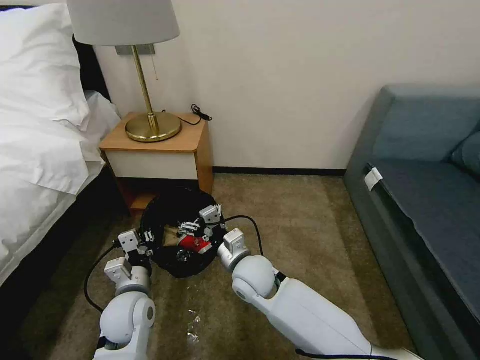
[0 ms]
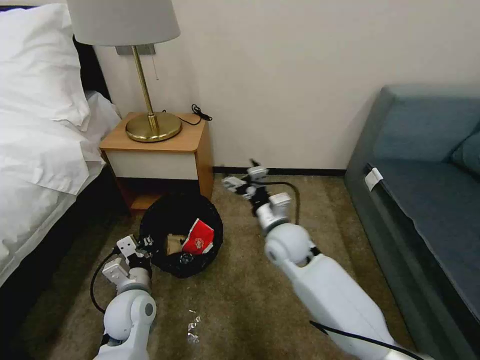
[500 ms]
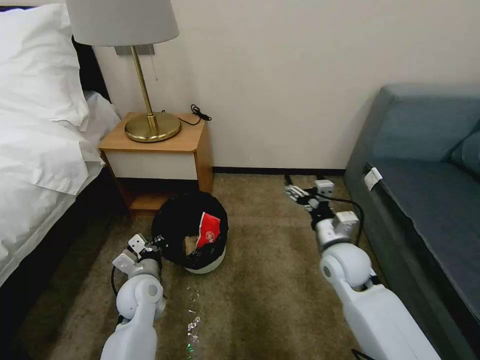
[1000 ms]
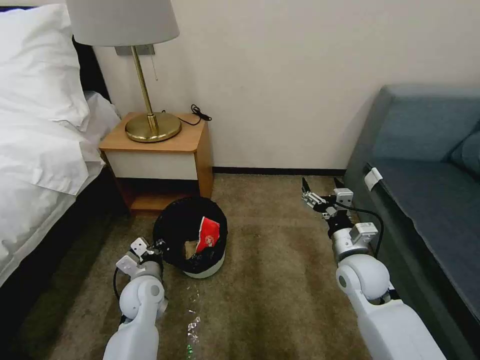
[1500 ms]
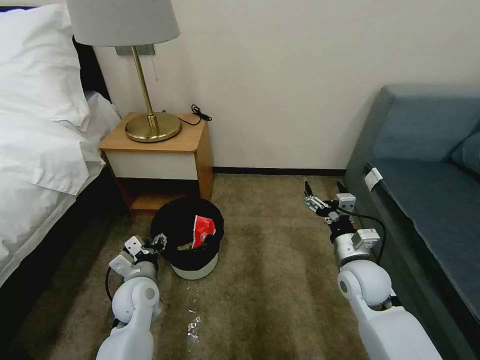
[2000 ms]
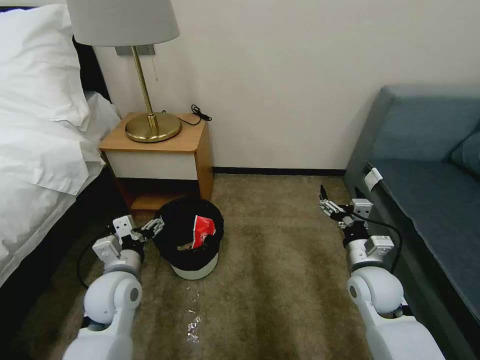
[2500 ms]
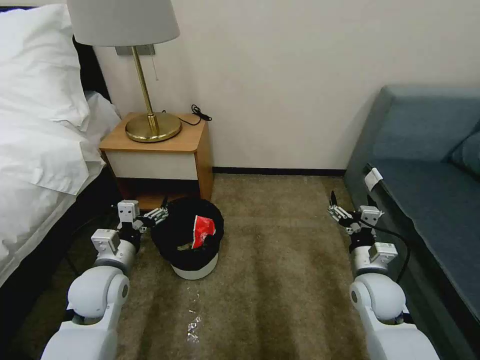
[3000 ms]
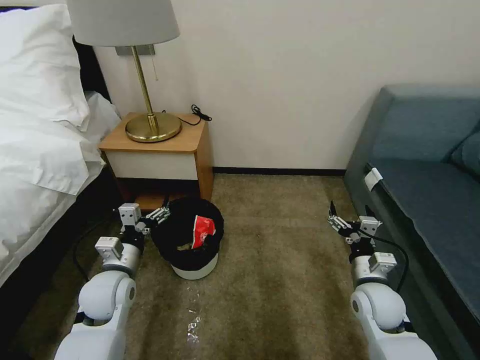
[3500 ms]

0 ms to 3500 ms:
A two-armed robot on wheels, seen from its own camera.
Task of the whole recording: Pick up the trash bin, then pick up the garbage on the floor and place it into the trash bin.
0 ms to 2000 ms: The right gripper moves to the right, approximately 25 cm. Meanwhile the left gripper opens up.
2000 ms to 3500 ms: The right gripper changes place by about 5 cm. Meanwhile the left gripper travels upward by some 5 cm, and opens its fingers.

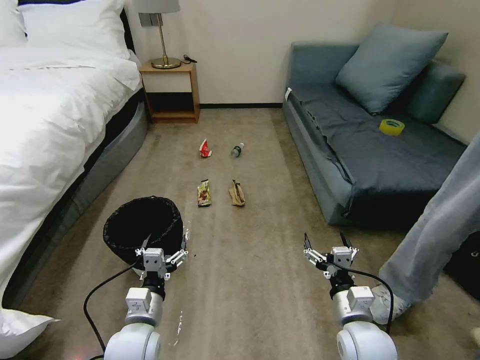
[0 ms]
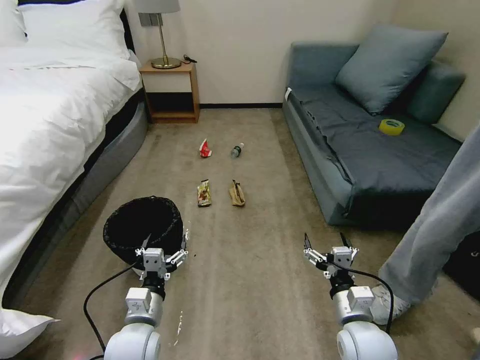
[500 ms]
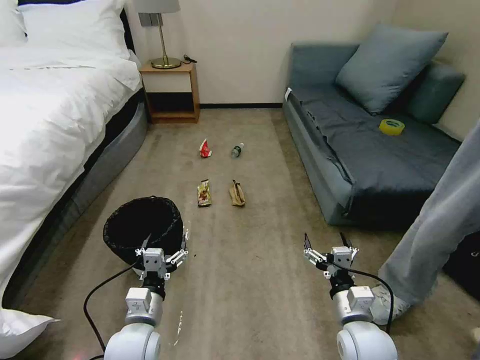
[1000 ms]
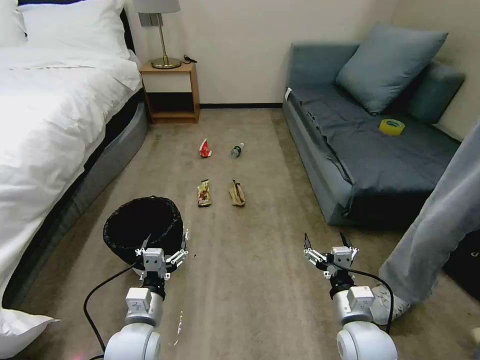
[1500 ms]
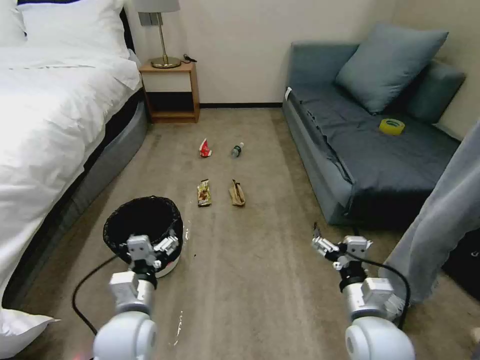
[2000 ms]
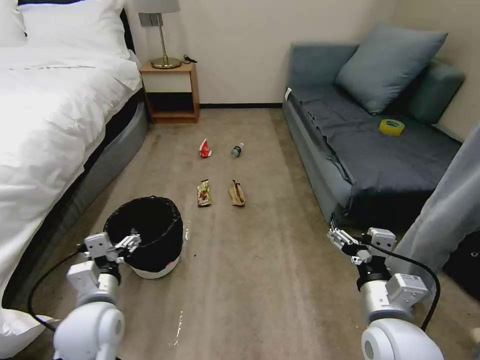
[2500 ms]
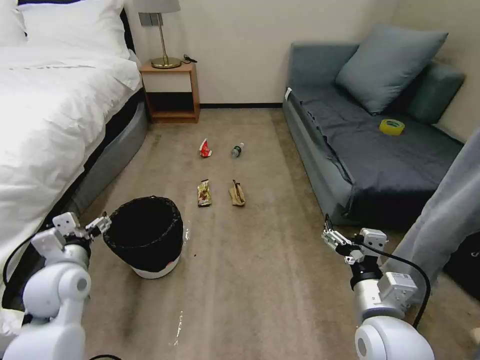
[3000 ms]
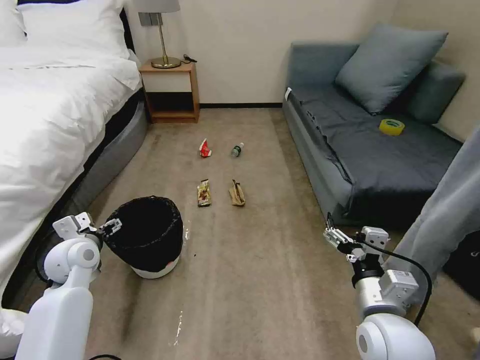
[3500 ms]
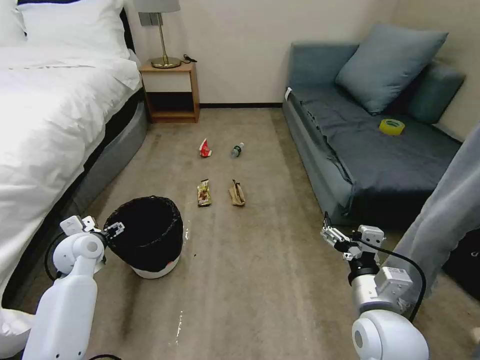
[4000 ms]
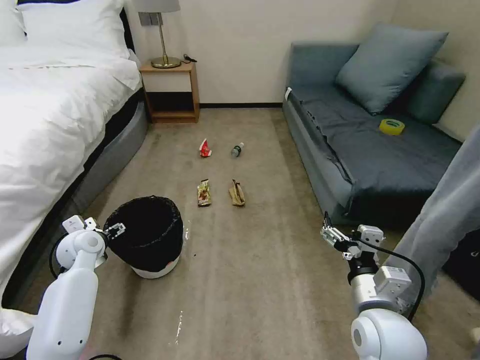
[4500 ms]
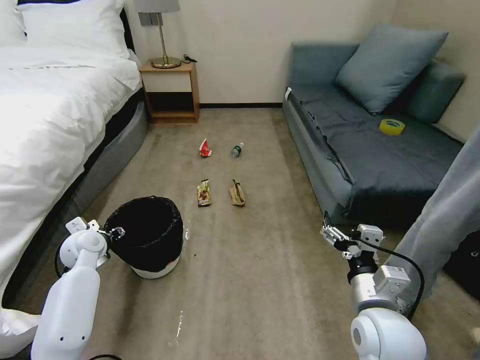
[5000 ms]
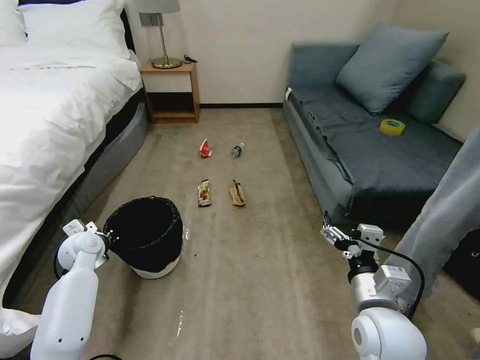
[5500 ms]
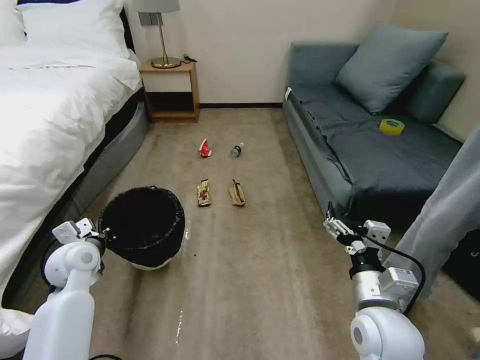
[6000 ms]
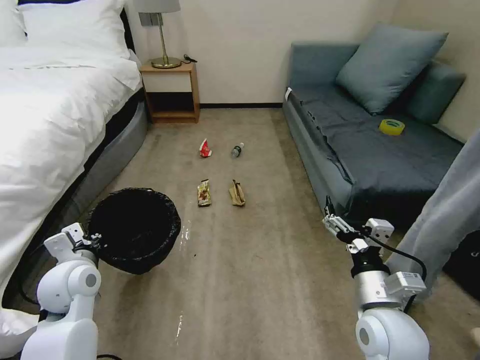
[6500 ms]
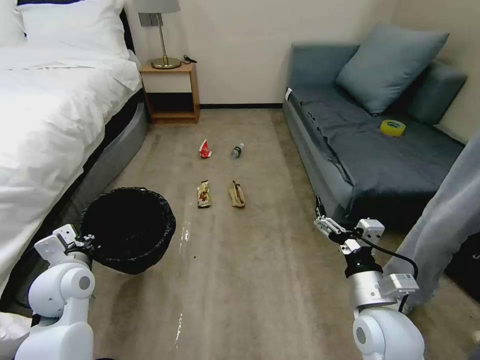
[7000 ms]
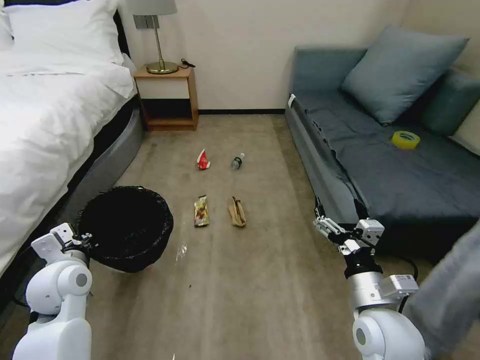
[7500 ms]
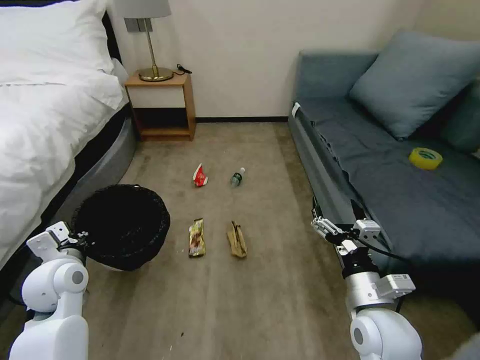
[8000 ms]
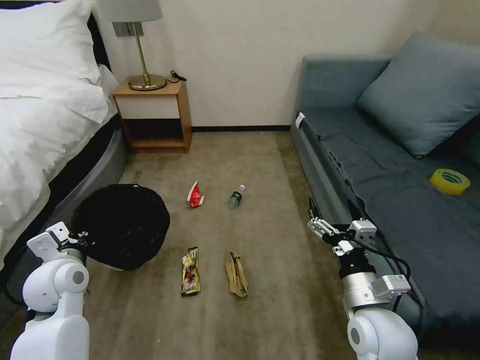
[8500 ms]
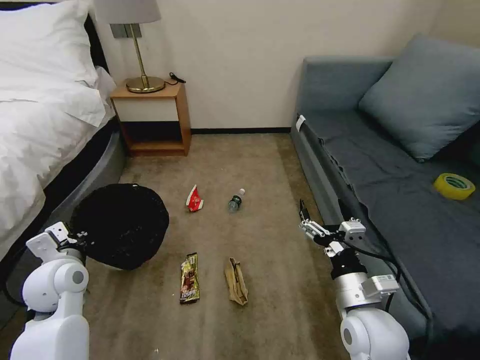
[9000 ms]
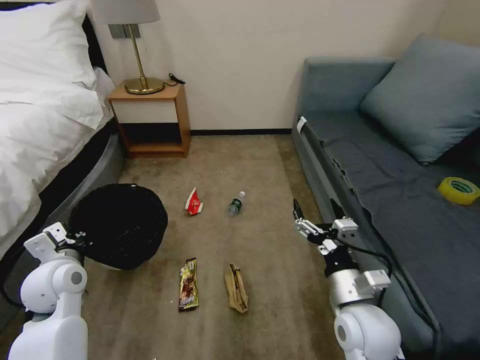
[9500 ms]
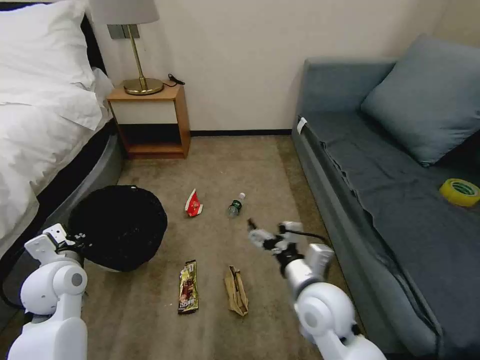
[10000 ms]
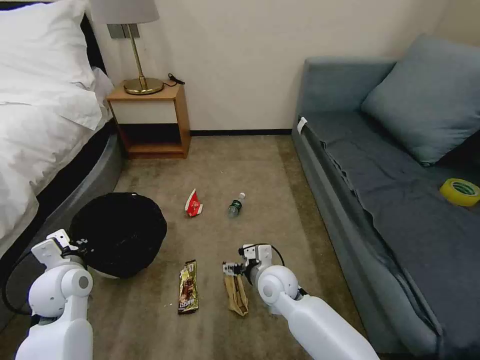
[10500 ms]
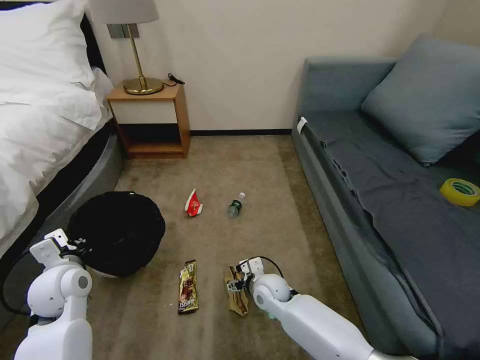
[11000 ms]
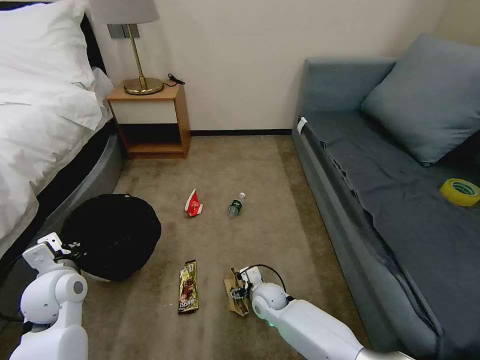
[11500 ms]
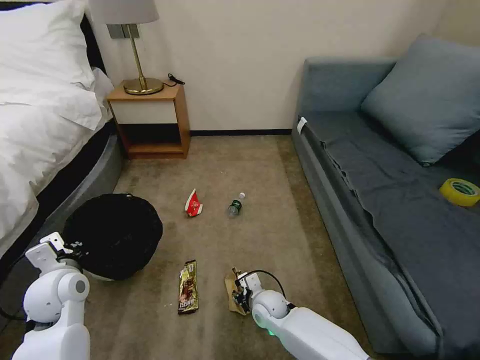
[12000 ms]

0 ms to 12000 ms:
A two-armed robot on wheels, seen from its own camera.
Task of the whole recording: Pick up the trash bin, then pick up the garbage on the floor and place it into the trash bin.
2000 ms to 4000 ms: The left gripper shifts approximately 25 cm forward and to the left.
4000 ms to 6000 ms: The left gripper closes its fingers.
6000 ms to 8000 ms: The left gripper is displaced backward by roughly 5 cm.
8000 ms to 10000 ms: The right gripper goes some 10 cm to the left.
10000 ms to 12000 ms: The right gripper shifts some 25 cm downward, and closes.

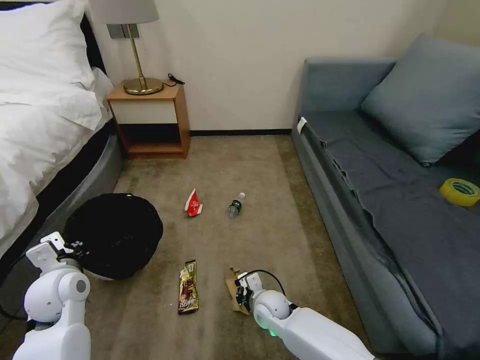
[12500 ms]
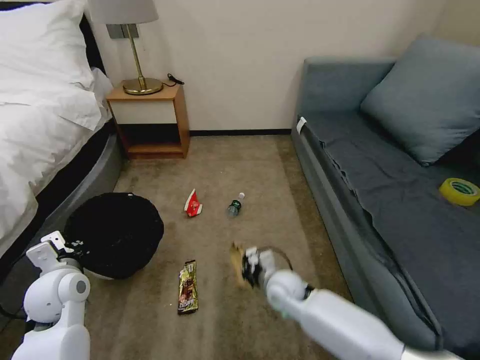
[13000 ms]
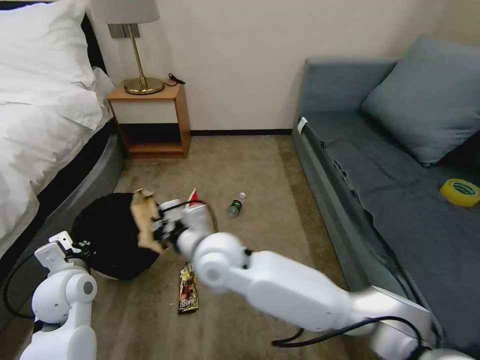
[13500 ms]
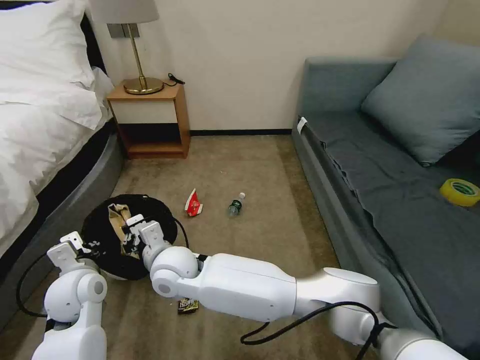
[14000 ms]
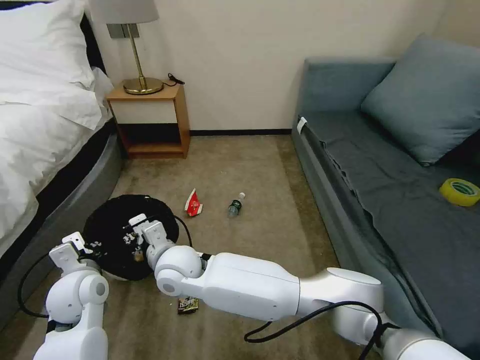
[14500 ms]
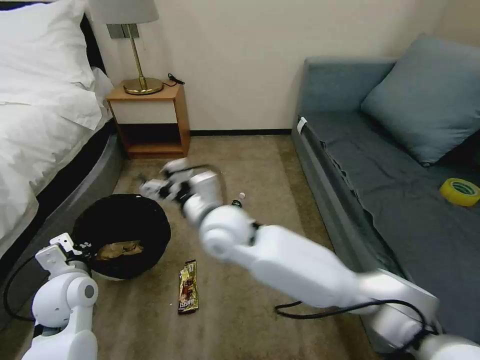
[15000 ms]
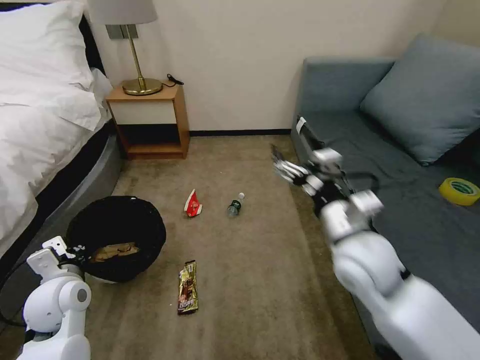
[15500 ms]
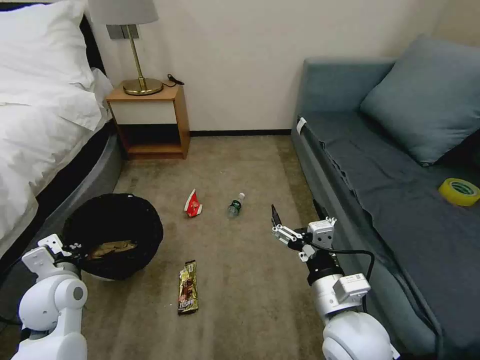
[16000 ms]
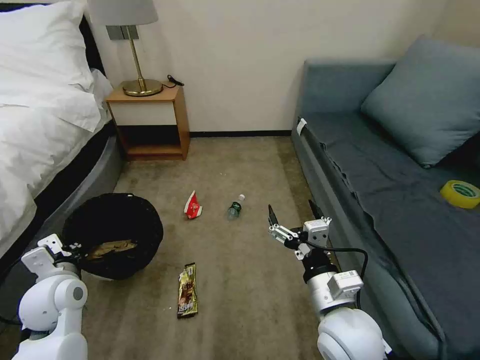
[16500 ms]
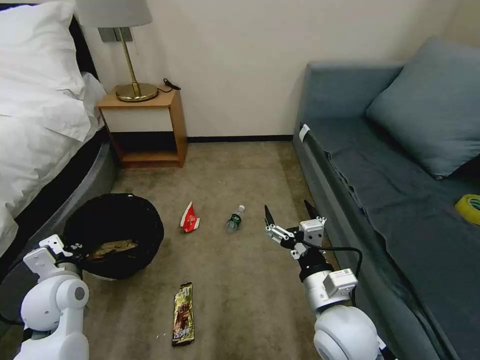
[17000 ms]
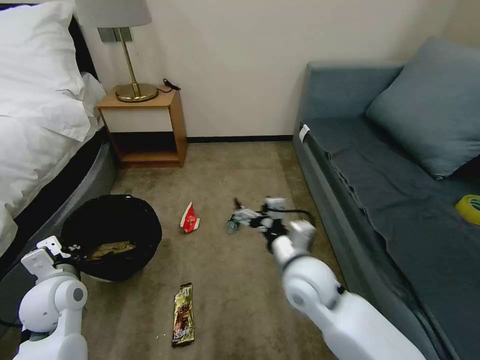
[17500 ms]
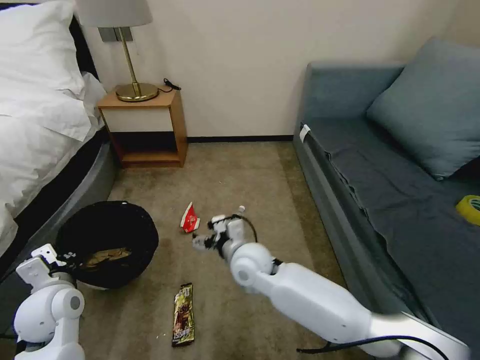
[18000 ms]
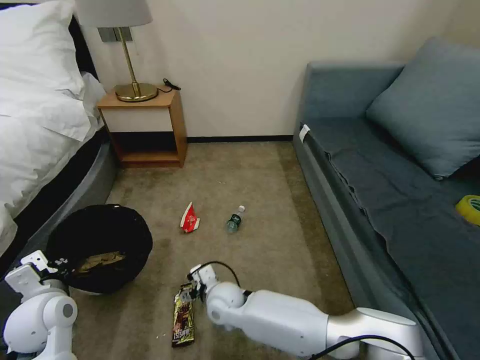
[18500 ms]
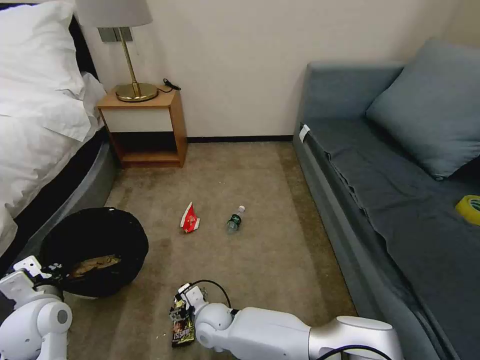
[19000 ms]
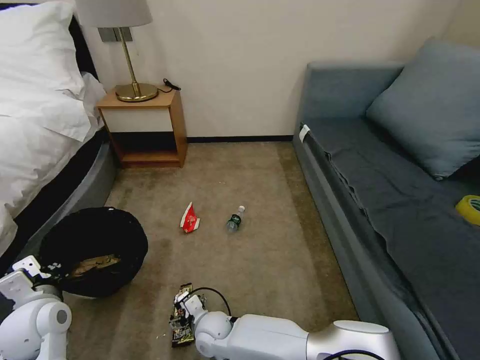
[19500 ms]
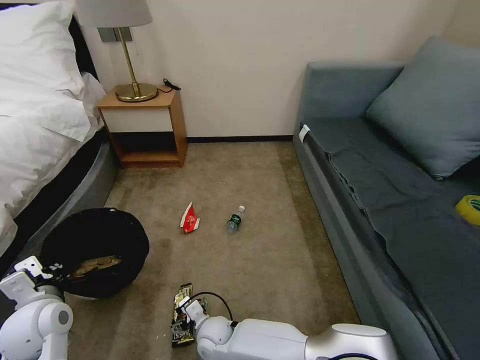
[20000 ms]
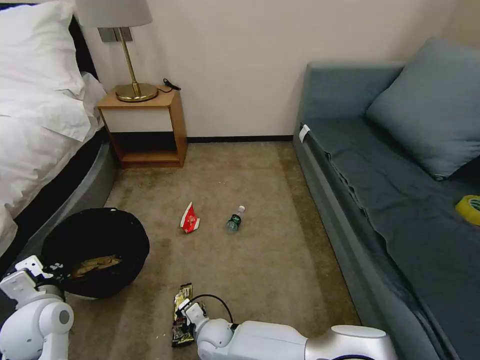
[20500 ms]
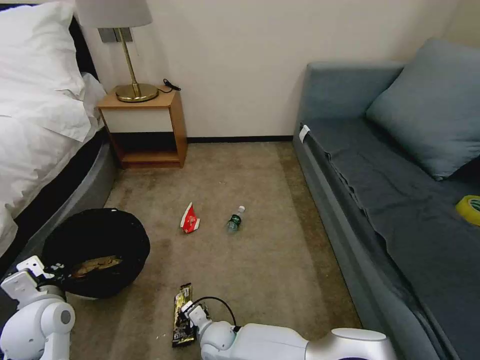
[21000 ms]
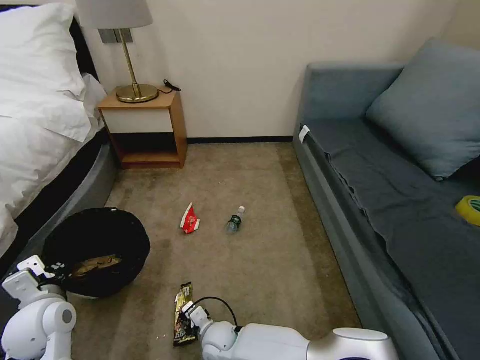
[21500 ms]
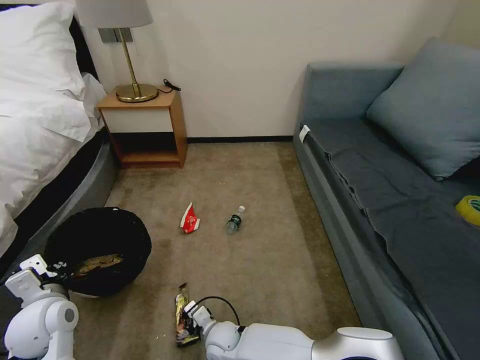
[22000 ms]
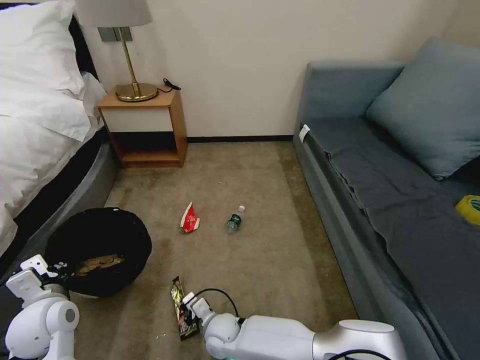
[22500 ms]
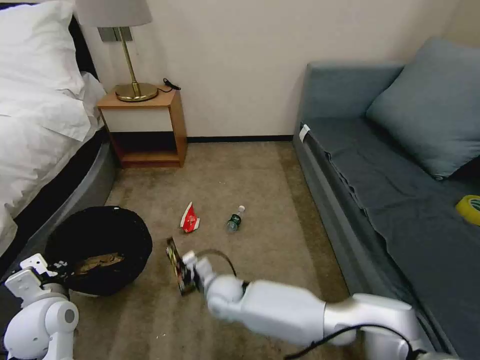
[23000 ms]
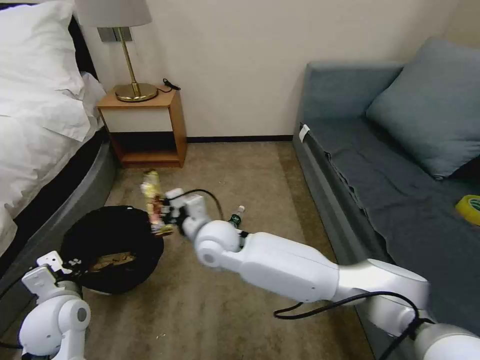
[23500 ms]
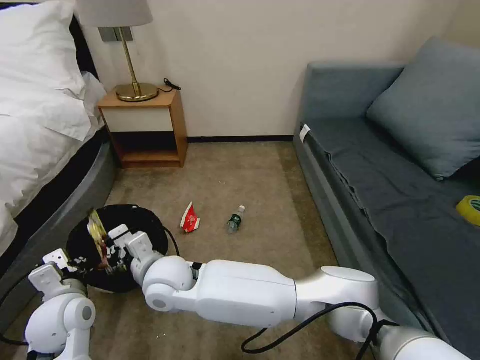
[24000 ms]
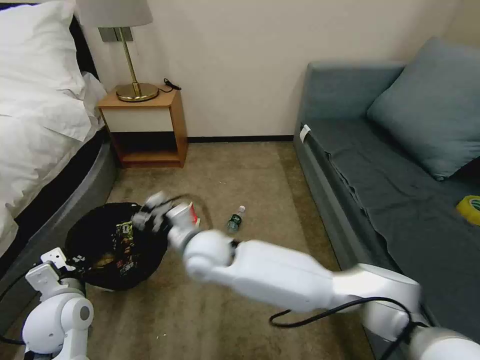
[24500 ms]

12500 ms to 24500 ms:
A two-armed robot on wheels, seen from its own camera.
Task of the whole recording: Pick up the trash bin, then pick up the garbage on the floor and place it into the trash bin.
12500 ms to 14500 ms: The right gripper goes about 30 cm to the left and upward.
14500 ms to 16500 ms: The right gripper goes approximately 35 cm to the right and backward, and opens.
16500 ms to 18500 ms: The right gripper moves to the left, downward and forward, approximately 30 cm.
18500 ms to 20500 ms: The right gripper heads downward and backward, covering roughly 10 cm.
20500 ms to 22500 ms: The right gripper closes its fingers.
22500 ms to 24500 ms: The right gripper goes approximately 25 cm upward, and opens up.
